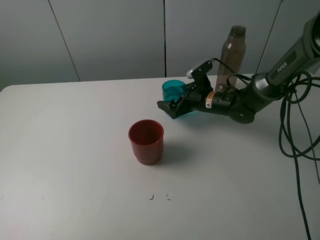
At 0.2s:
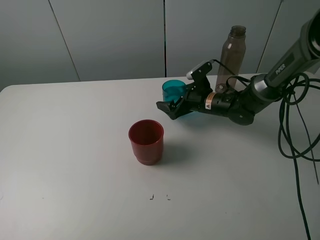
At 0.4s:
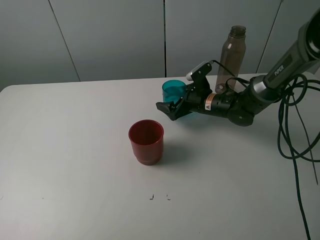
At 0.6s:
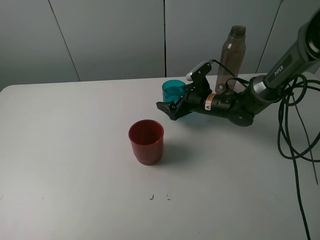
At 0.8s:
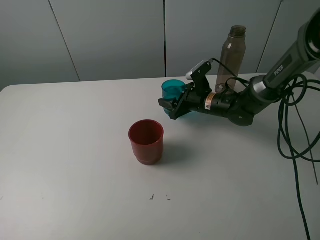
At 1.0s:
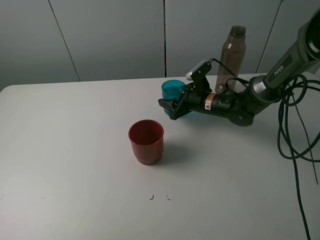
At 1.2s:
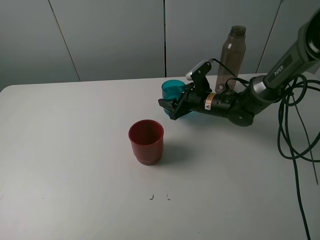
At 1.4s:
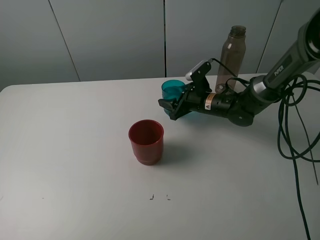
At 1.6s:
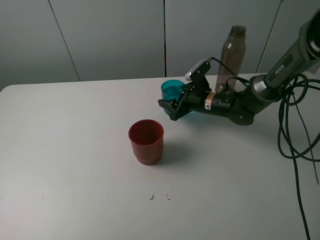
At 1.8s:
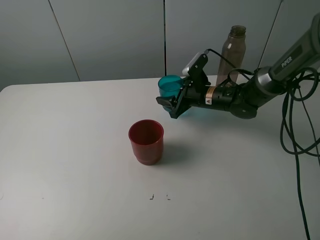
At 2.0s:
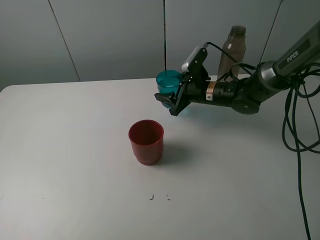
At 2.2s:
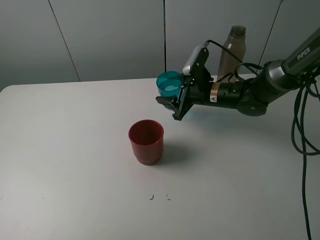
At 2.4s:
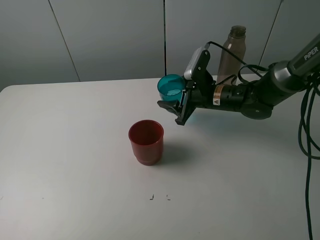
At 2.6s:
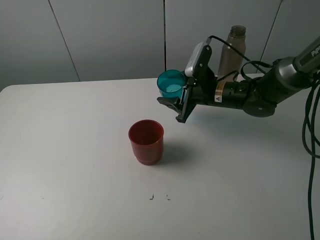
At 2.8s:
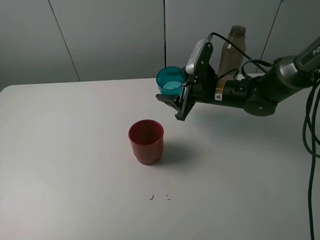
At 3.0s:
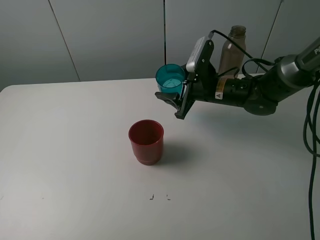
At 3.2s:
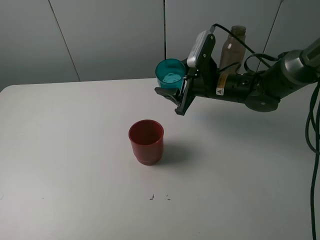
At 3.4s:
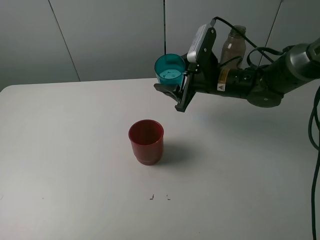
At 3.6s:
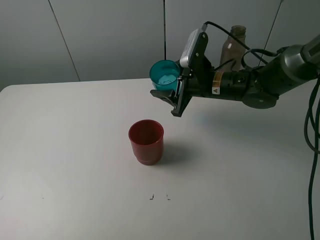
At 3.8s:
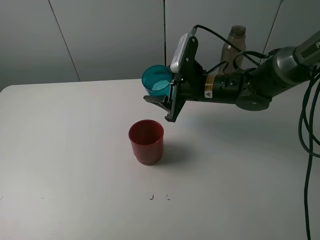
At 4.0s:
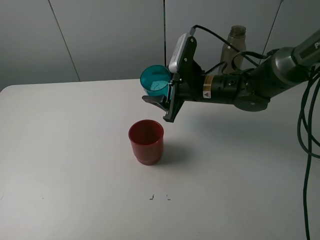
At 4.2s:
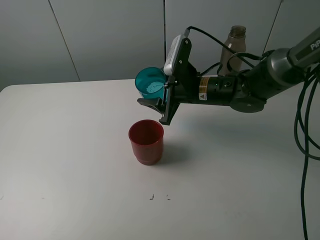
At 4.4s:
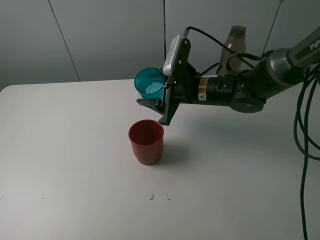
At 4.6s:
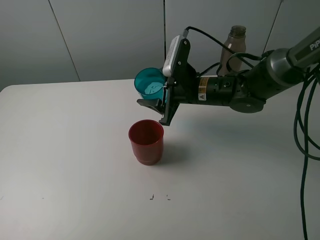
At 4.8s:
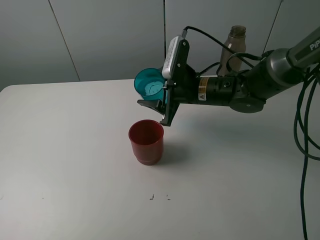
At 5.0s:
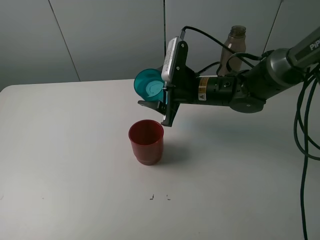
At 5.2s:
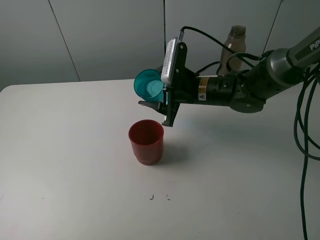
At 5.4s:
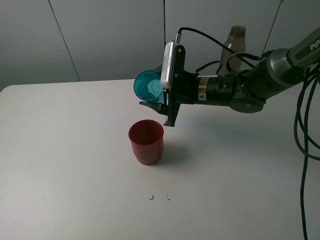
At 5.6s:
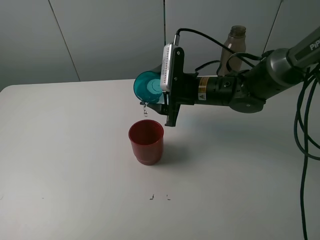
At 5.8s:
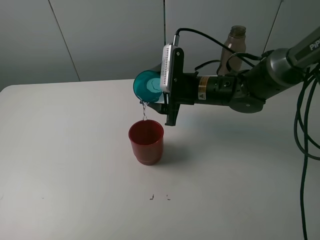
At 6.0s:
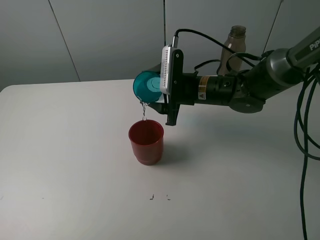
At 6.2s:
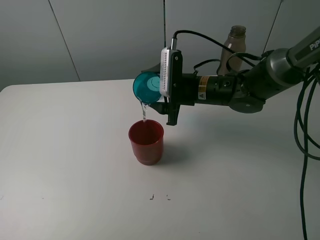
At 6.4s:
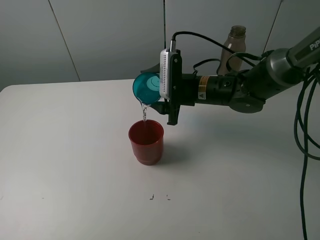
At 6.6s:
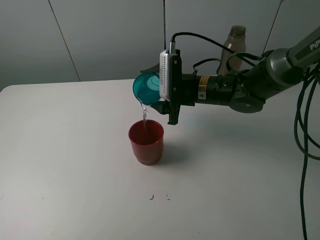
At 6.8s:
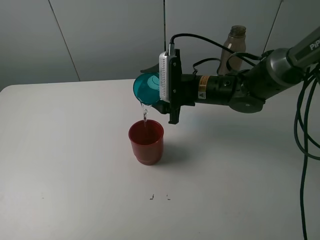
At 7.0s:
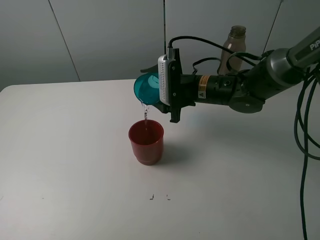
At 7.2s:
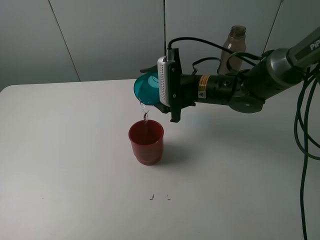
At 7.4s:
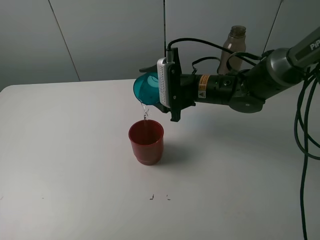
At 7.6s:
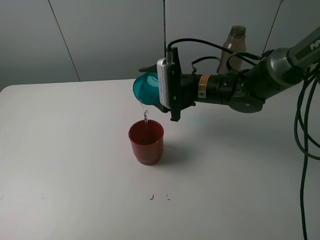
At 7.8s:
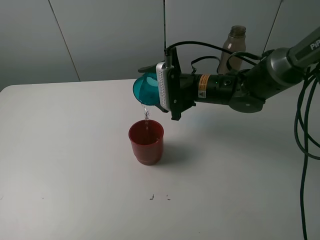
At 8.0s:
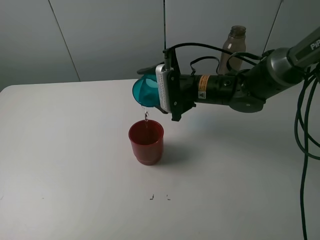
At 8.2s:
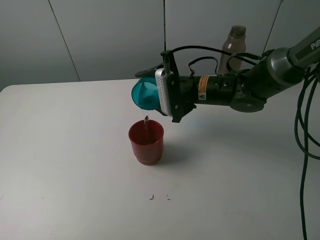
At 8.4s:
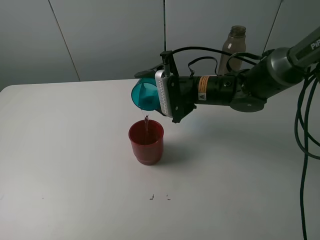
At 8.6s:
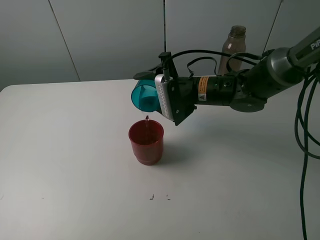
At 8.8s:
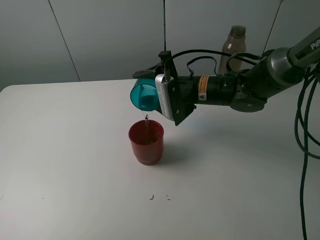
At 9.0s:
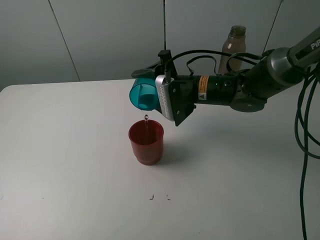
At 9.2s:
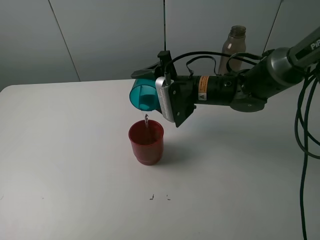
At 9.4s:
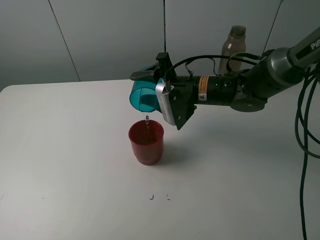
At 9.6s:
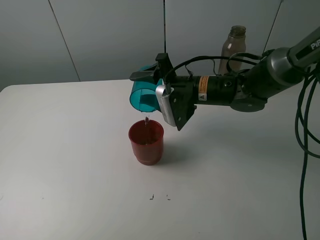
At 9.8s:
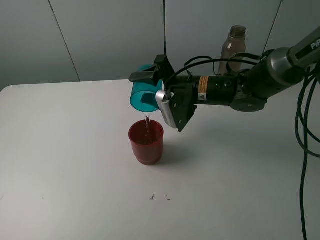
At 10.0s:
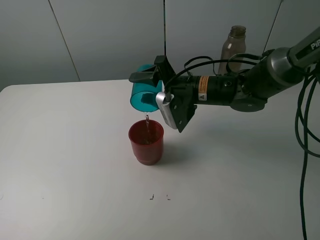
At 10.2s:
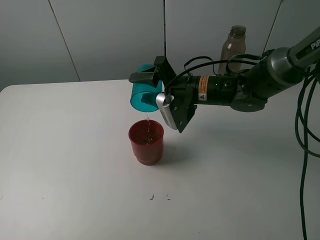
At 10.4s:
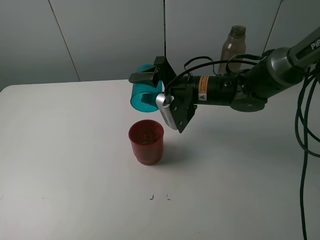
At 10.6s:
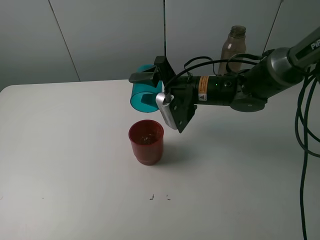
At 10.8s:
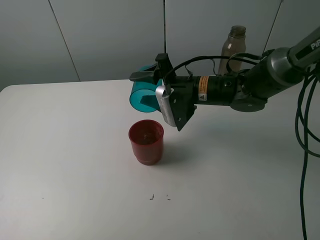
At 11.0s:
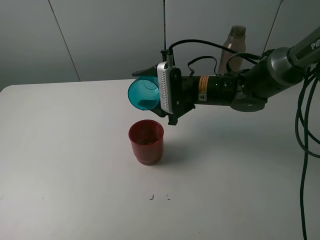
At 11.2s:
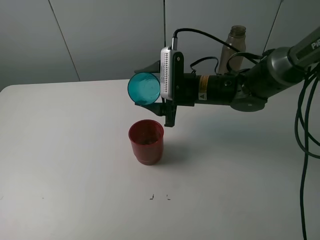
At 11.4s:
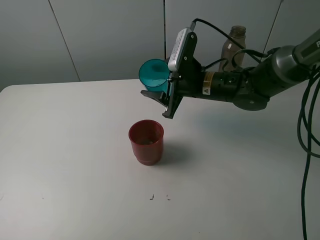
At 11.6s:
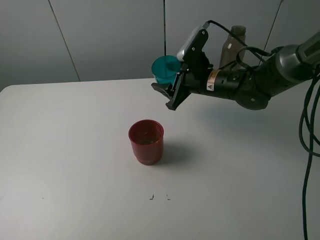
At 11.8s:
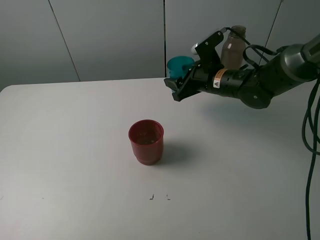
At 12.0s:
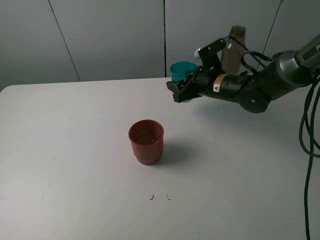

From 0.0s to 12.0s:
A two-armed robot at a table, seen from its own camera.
Task of the whole recording: pick up the bottle and pour water into the cup, then pick up the cup containing water and pour it into another cup.
Step, from 1.4s to 10.8s: Pour water from blue cup to red cup with the right gripper.
From 0.0s to 1.6s: The right gripper closes.
From 1.6s to 3.0s: The right gripper heads upward, covering roughly 5 cm.
From 3.0s to 4.4s: The right gripper changes place by some 5 cm.
From 7.6s to 9.0s: The grippers make only small movements.
From 9.0s to 10.4s: There are only small adjustments of the grippers.
From 10.4s to 12.0s: The right gripper shifts about 5 cm to the right.

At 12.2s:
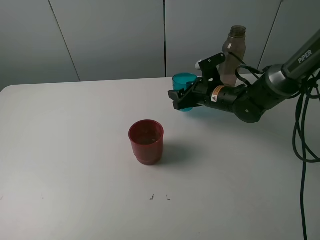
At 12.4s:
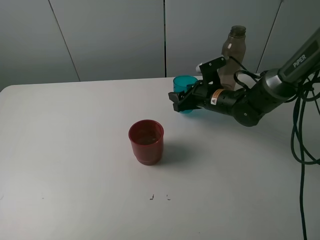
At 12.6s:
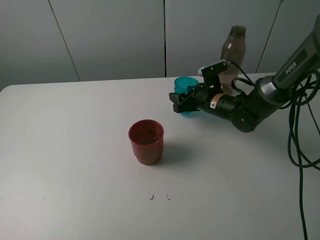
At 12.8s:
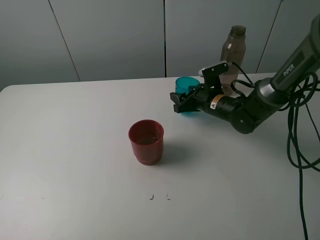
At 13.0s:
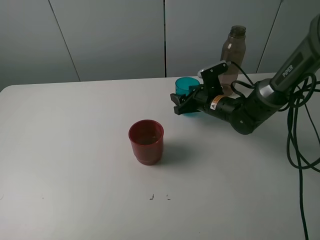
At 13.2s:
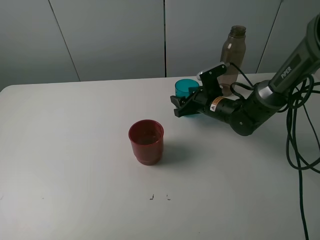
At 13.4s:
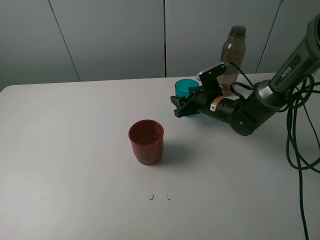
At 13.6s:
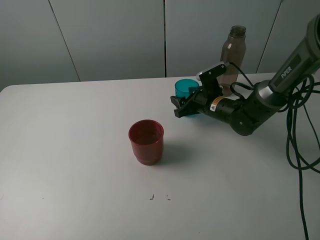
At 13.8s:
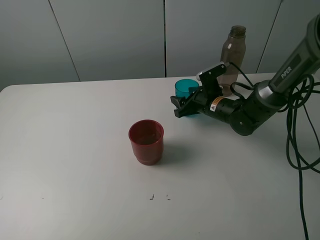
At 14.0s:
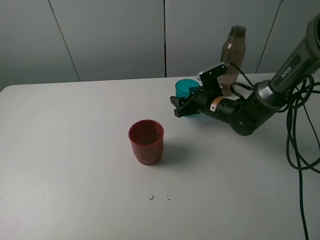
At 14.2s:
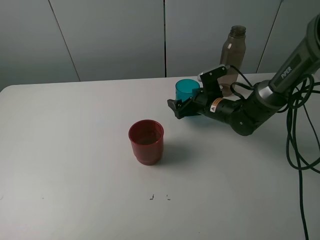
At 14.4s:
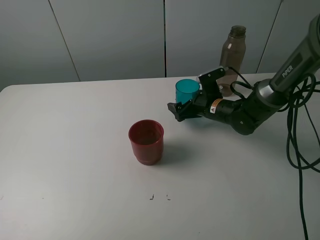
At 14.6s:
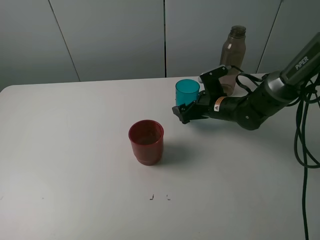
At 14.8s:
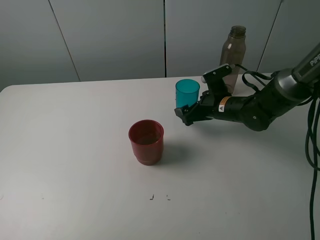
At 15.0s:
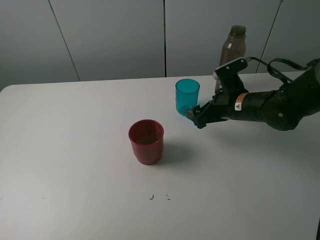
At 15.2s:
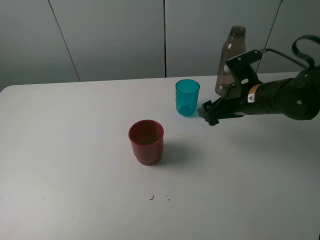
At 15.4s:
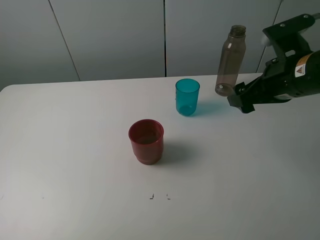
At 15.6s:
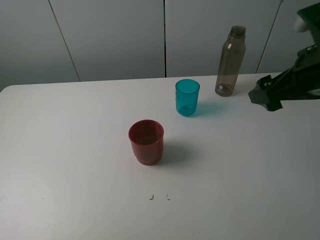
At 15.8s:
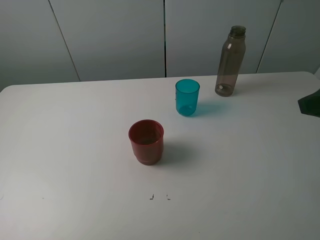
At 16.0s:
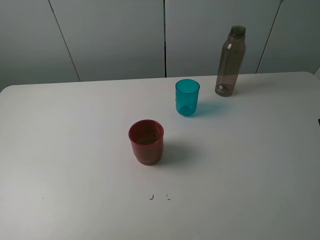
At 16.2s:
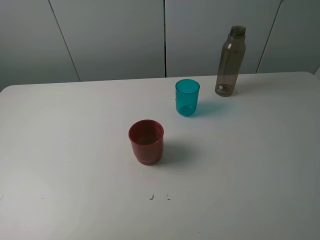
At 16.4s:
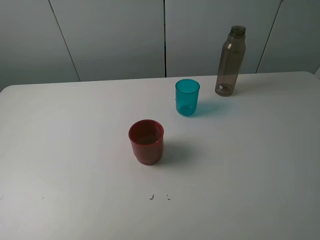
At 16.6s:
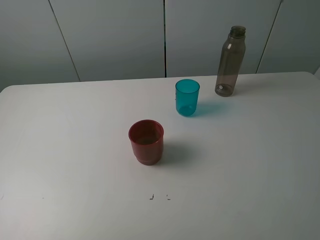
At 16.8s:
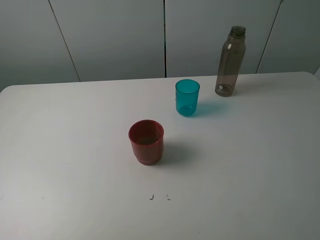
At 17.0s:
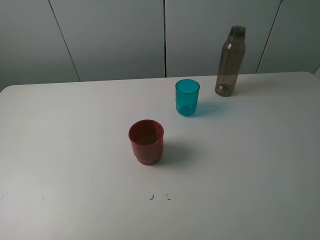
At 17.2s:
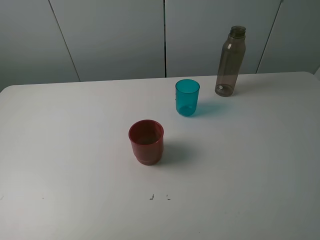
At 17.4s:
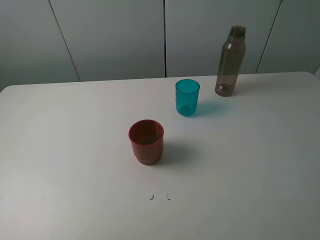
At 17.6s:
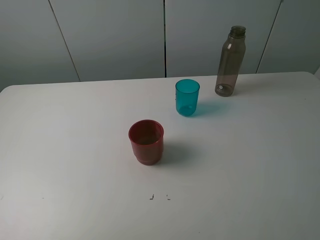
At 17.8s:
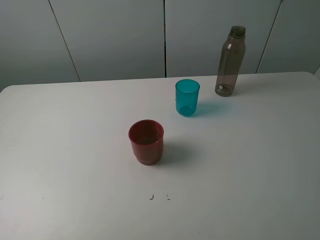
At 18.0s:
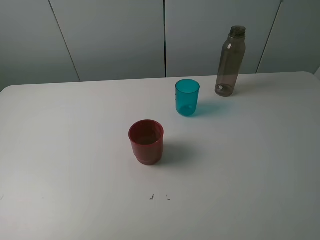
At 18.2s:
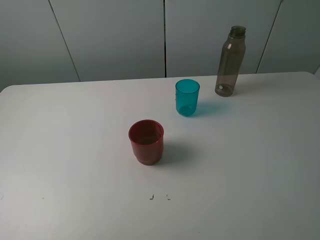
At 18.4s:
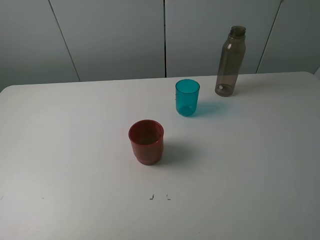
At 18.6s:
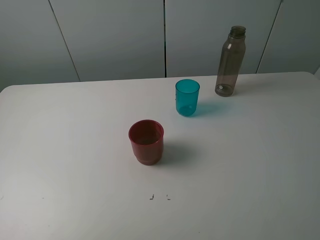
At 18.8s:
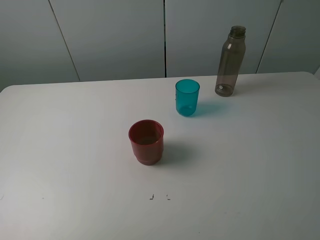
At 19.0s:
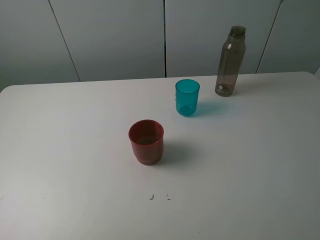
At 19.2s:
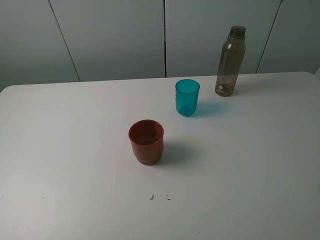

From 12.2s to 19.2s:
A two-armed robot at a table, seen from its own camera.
Task of the whole recording: pick up the bottle and pour water into the cup, then pick up the cup containing water and pour it into another cup.
Step, from 12.2s to 14.4s: Place the blue cup with the right gripper.
From 12.2s to 13.6s: The grippers stay close to where they were, moving slightly.
From 13.6s to 15.0s: The right gripper travels backward and upward by about 10 cm, and opens.
From 15.0s to 16.4s: The right gripper travels backward, upward and to the right by about 35 cm.
From 17.8s to 19.2s: Both grippers stay put.
